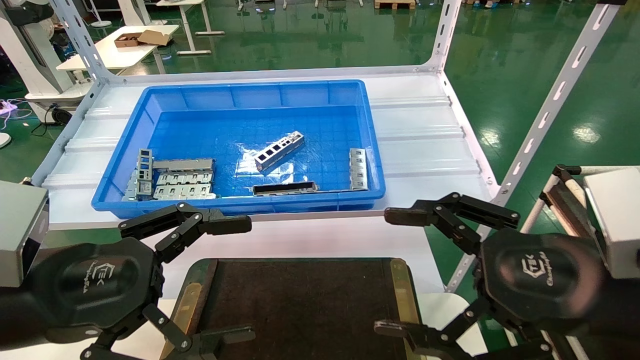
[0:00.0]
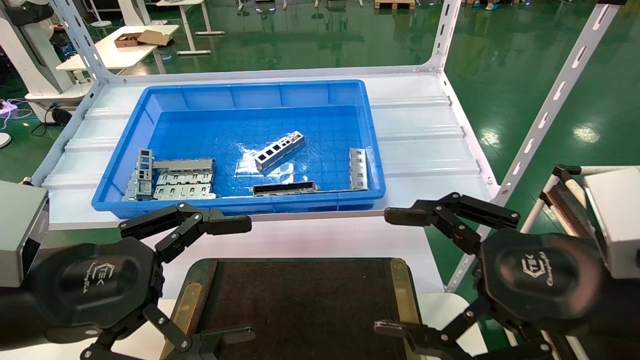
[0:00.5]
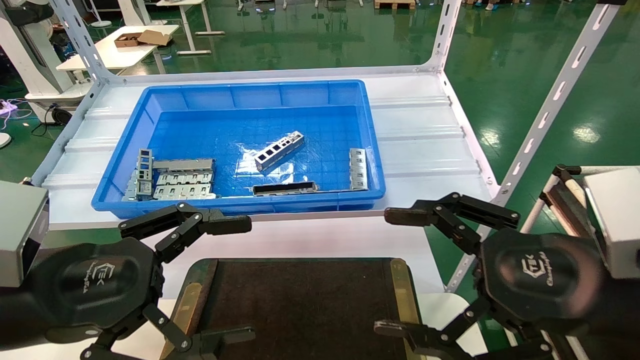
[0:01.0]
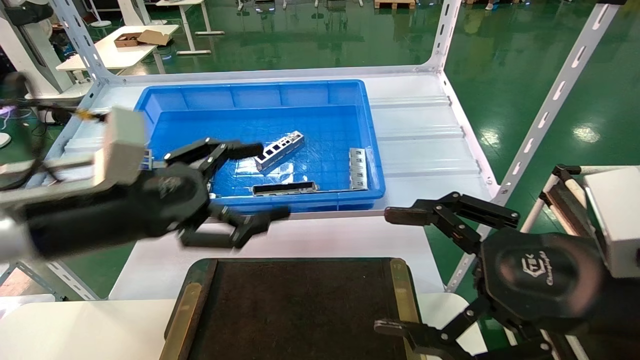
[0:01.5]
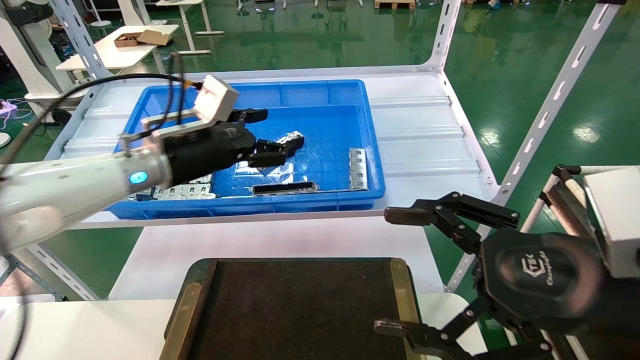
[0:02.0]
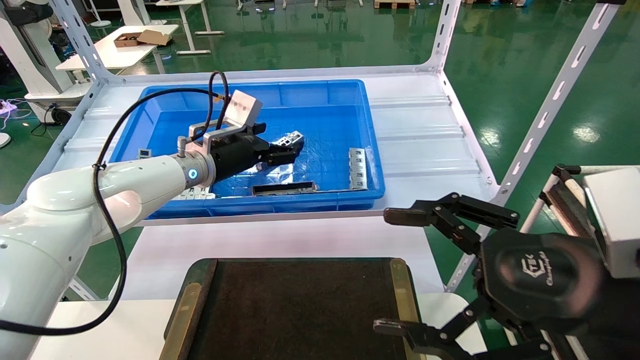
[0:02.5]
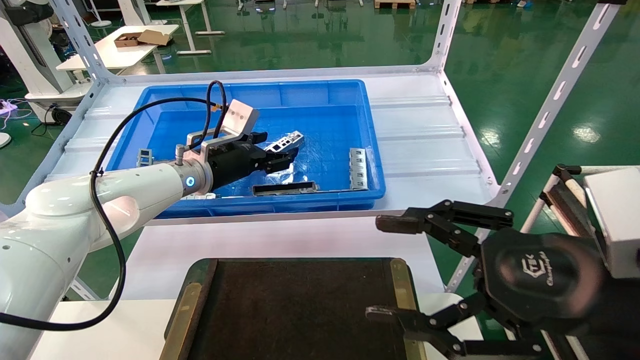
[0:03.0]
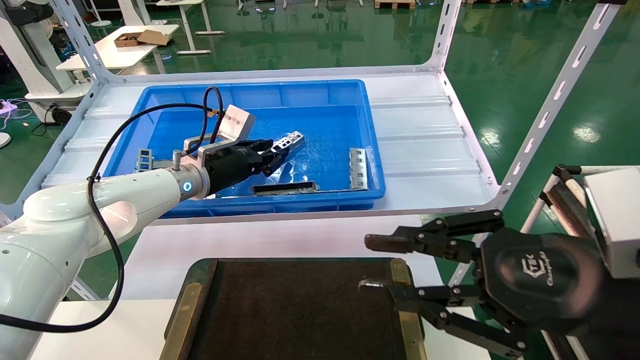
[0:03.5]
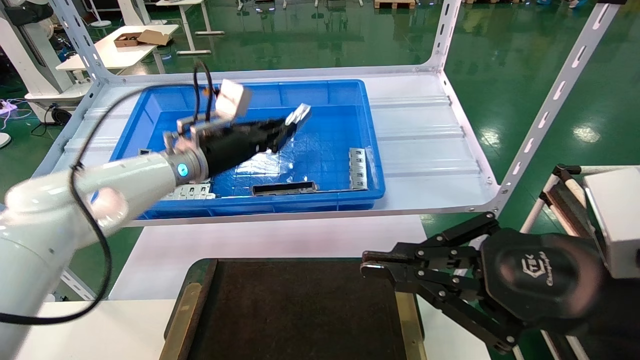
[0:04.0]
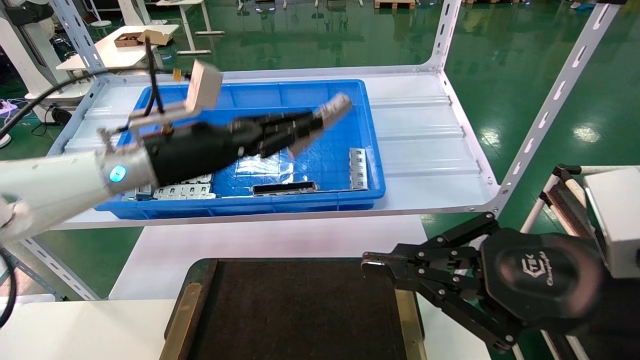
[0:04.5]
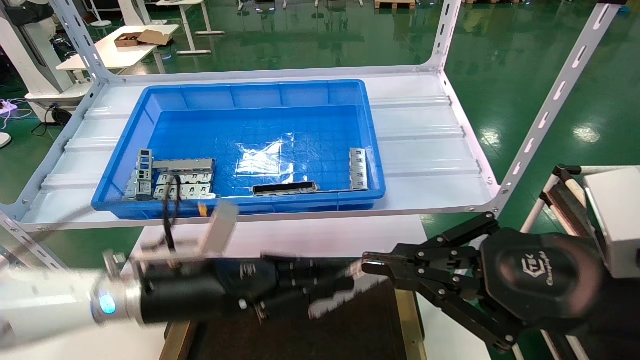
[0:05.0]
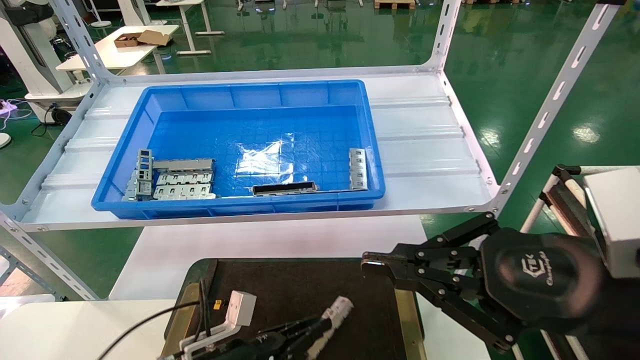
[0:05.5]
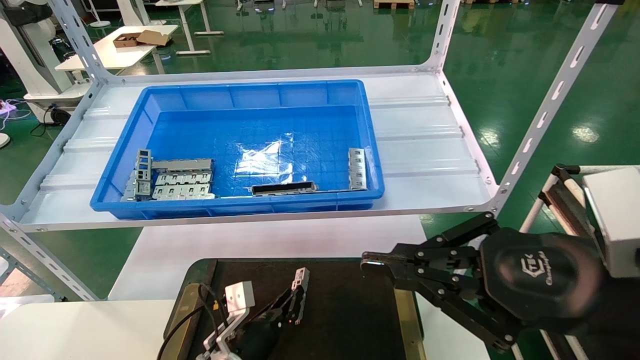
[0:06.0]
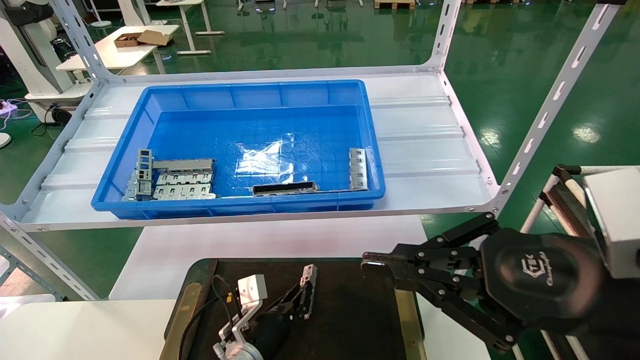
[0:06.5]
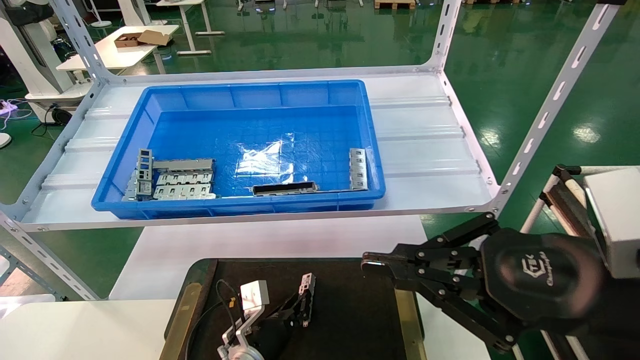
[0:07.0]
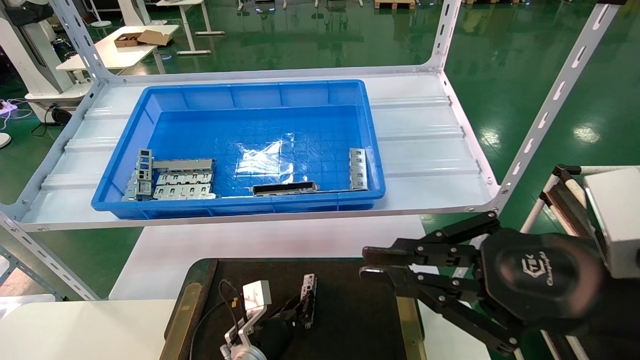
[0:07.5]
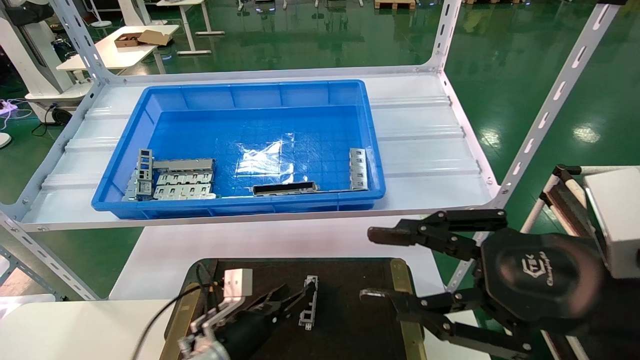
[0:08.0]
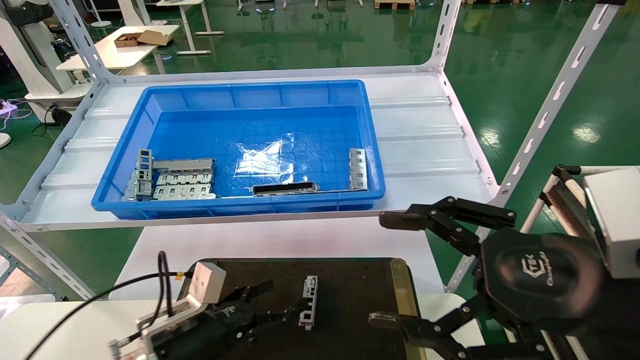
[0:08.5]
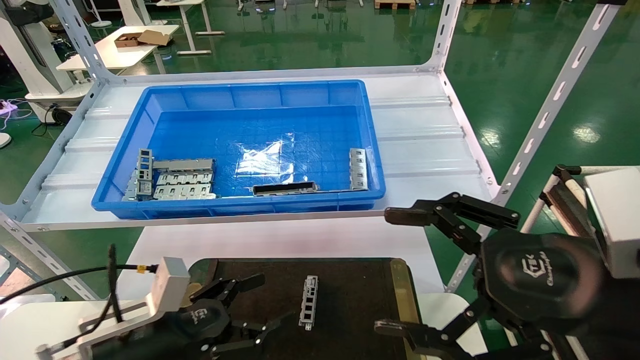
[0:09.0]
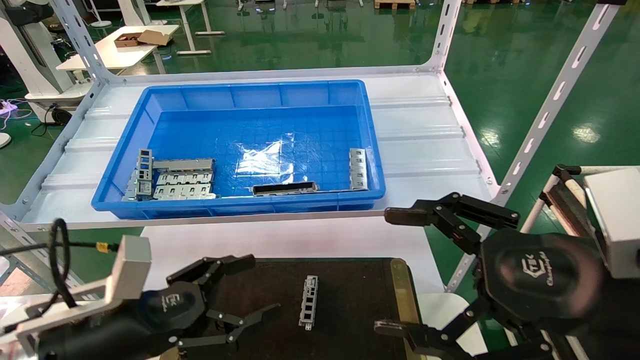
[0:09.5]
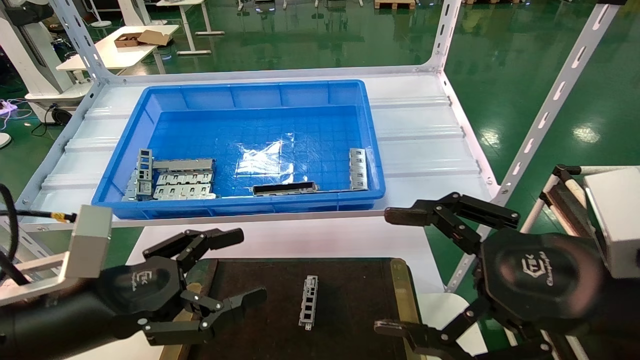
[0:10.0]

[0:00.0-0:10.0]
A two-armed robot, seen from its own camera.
Task of the whole recording: Grasp the part with one hand and place it on the black container.
Step, 0:01.5 to 0:04.0: Pick up the front USB bracket from the feeding area.
Step, 0:04.5 to 0:07.5: Place the front USB bracket into the box.
0:00.0 to 0:02.0: The left gripper is displaced forward by approximately 25 cm.
0:02.0 to 0:04.0: The right gripper closes. Meanwhile the left gripper goes approximately 5 cm forward, and closes its fingers.
0:04.0 to 0:06.0: The left gripper shifts roughly 35 cm downward.
0:06.0 to 0:08.0: The left gripper opens.
0:08.0 to 0:10.0: The right gripper opens its fingers; the left gripper travels upward, backward and to the left by some 25 cm, and opens.

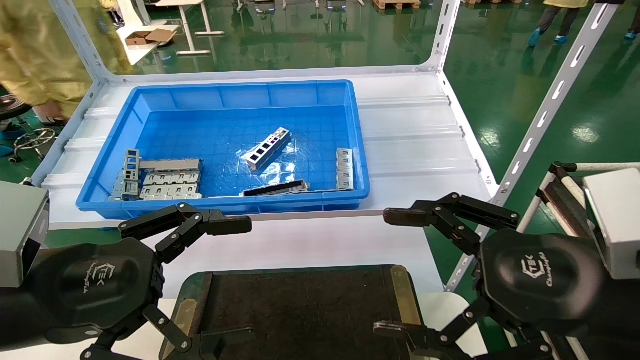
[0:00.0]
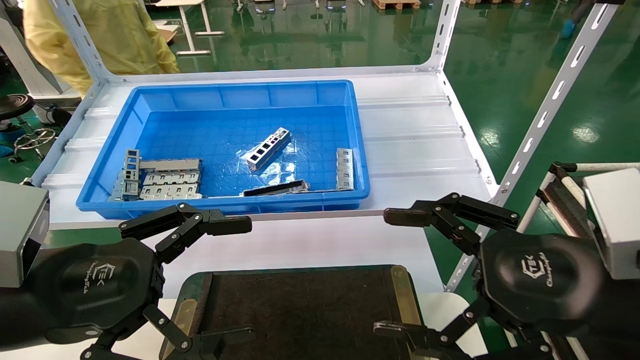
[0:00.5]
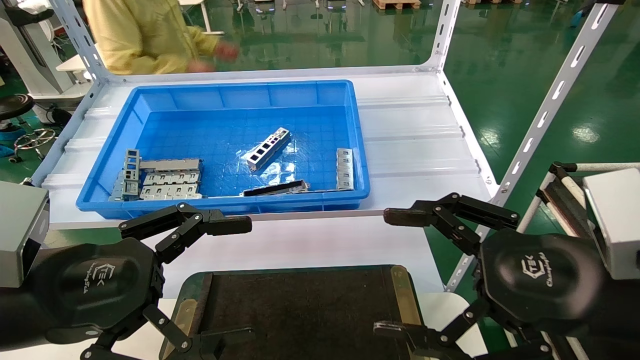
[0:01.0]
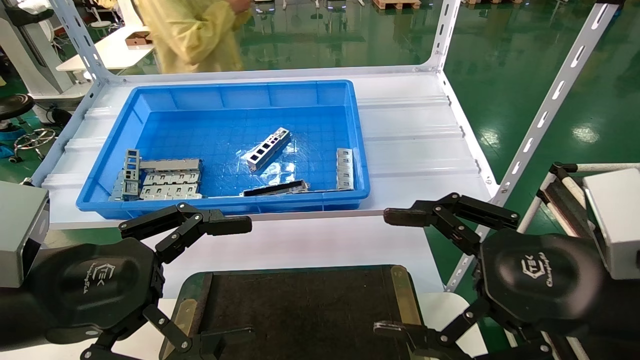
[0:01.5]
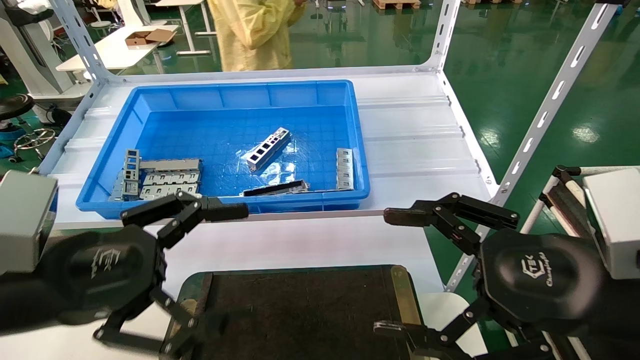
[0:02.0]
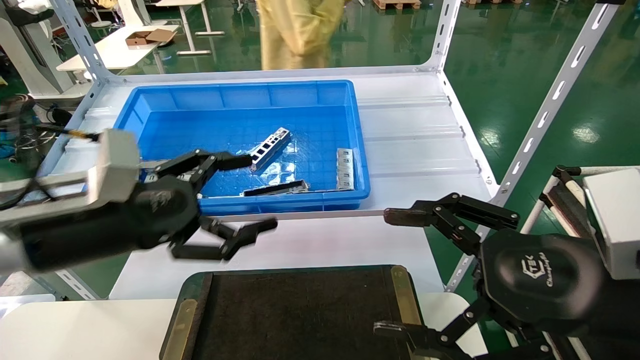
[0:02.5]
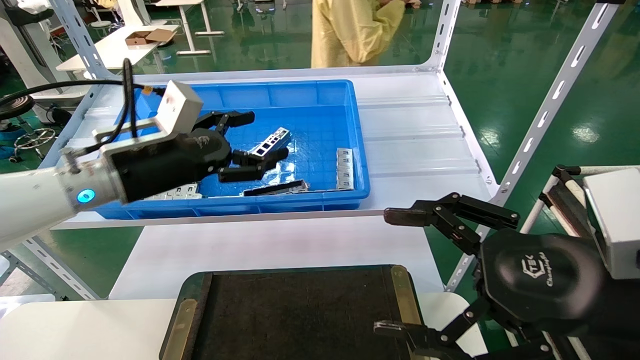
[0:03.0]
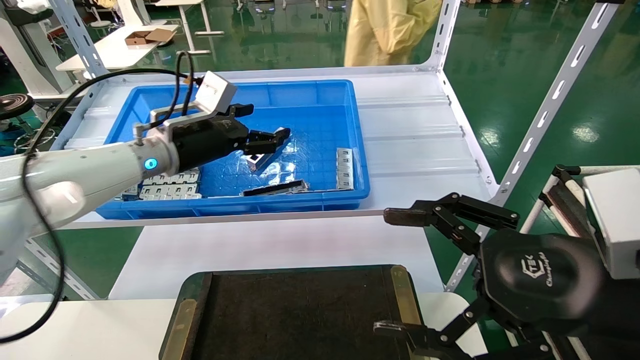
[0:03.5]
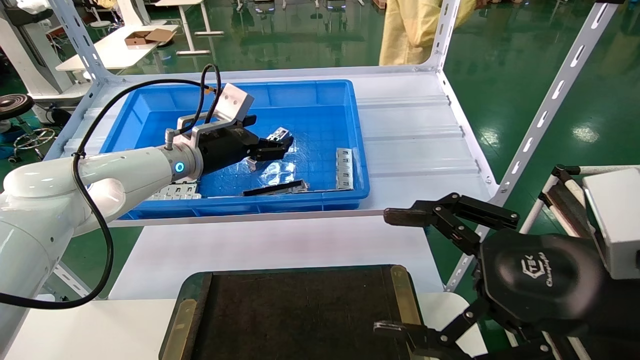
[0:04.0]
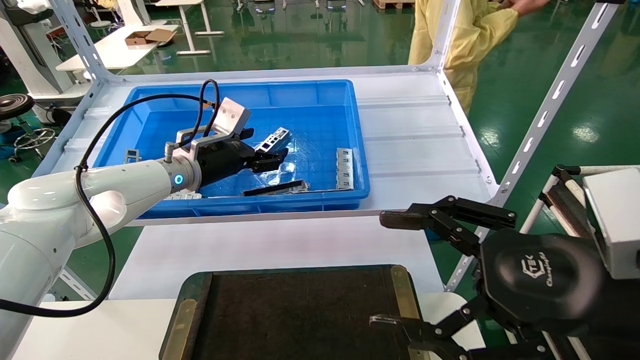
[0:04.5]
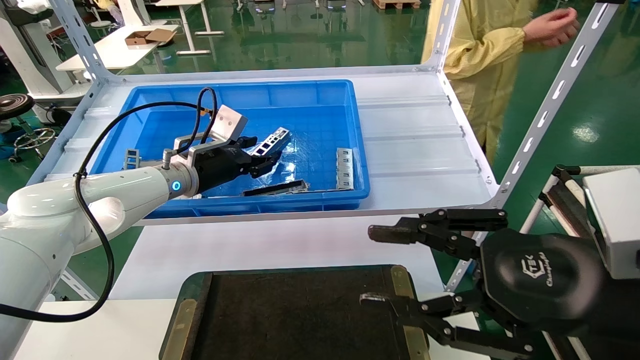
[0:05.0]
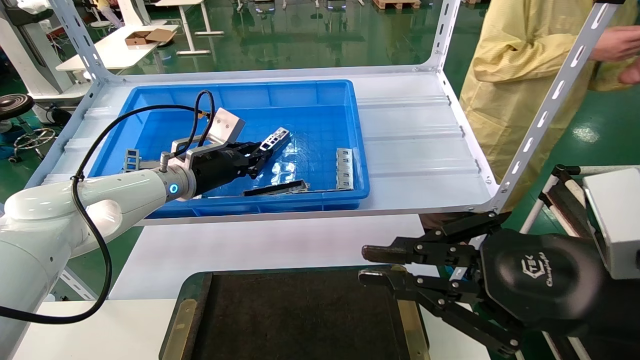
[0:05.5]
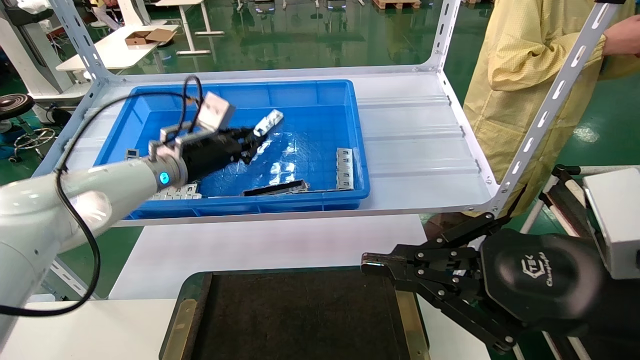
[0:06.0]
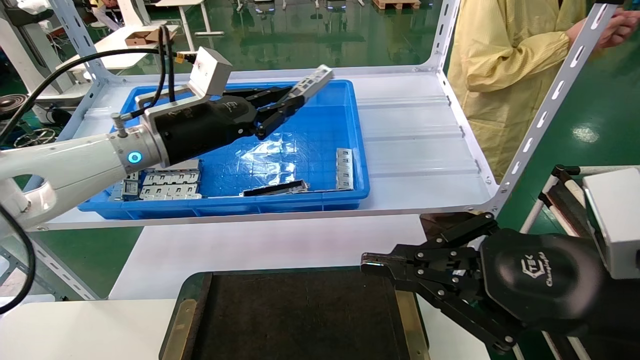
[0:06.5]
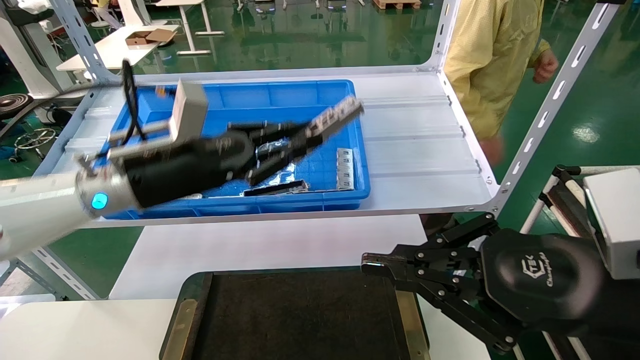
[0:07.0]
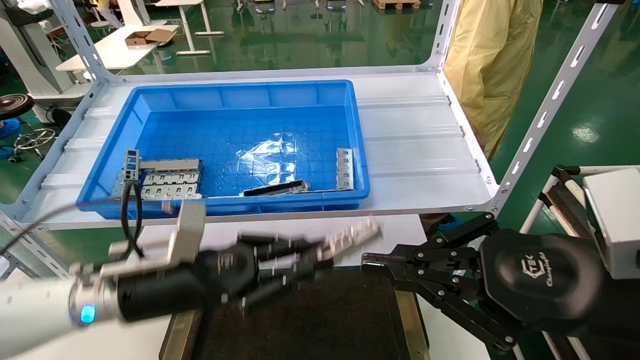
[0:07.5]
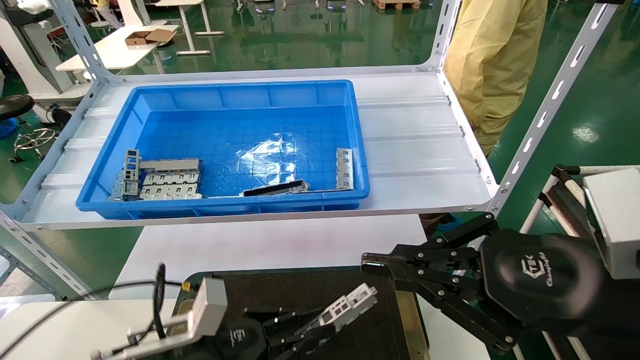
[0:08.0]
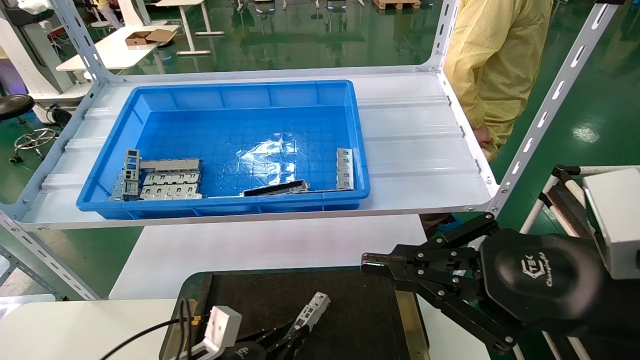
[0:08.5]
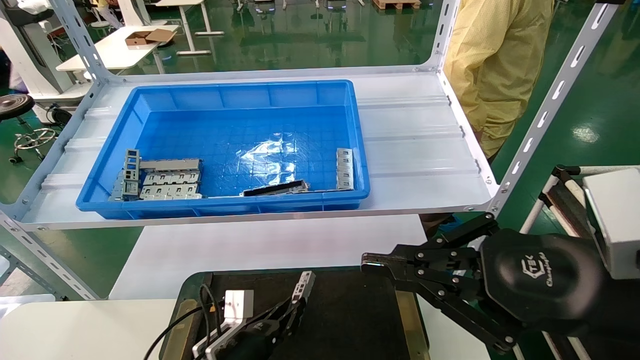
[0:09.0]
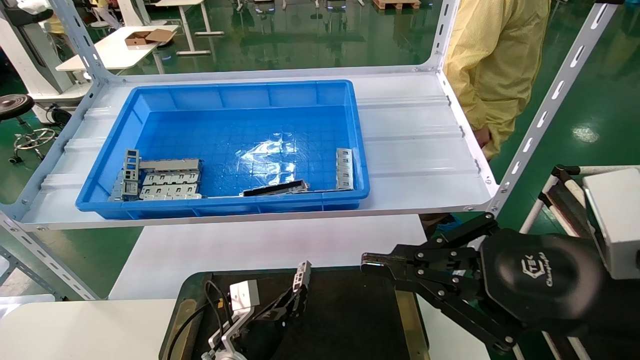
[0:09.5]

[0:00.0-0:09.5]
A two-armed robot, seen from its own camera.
Task of the whole recording: Grasp the part with one hand and place it on the black container.
Step, 0:02.5 to 0:06.0: Pick up the front USB bracket from the feeding area.
0:00.0 to 0:02.0: The grippers stay close to where they were, moving slightly.
0:02.0 to 0:04.0: The left gripper moves forward, approximately 30 cm.
0:04.0 to 0:05.5: The right gripper closes its fingers, while the left gripper closes.
0:05.5 to 0:07.5: The left gripper is displaced backward and downward by roughly 20 cm.
0:07.5 to 0:09.5: The left gripper goes roughly 25 cm downward and to the right.
